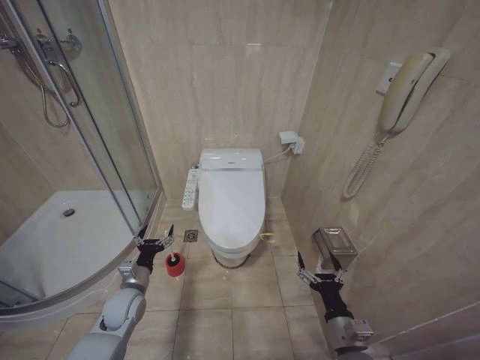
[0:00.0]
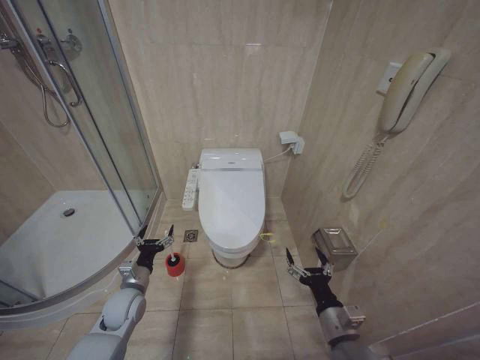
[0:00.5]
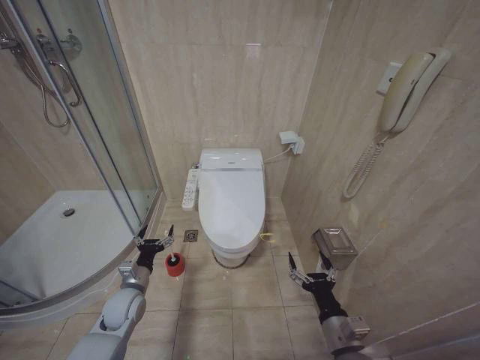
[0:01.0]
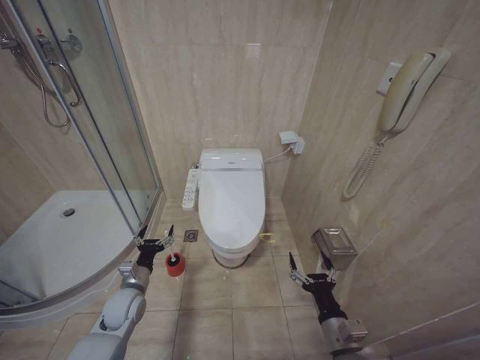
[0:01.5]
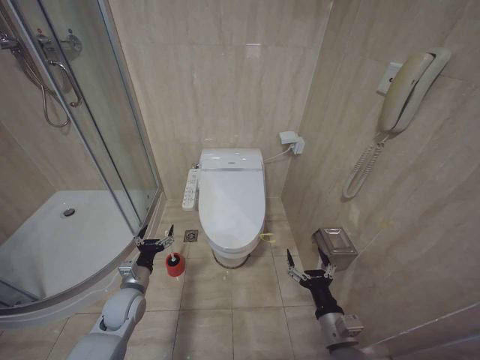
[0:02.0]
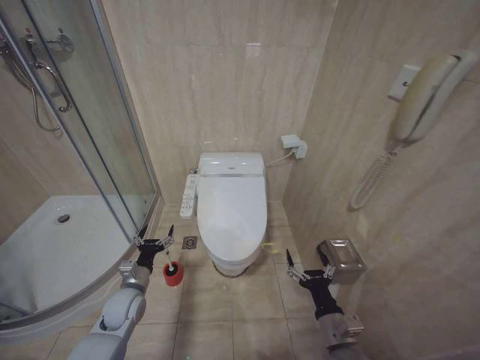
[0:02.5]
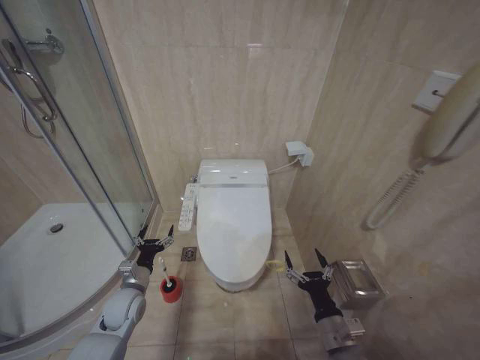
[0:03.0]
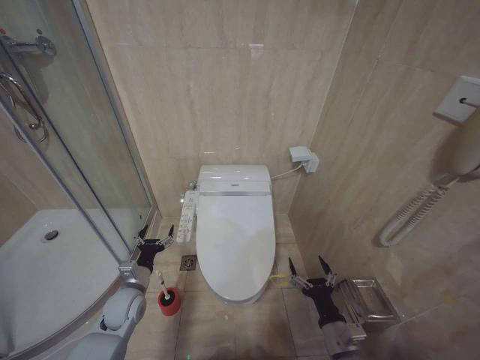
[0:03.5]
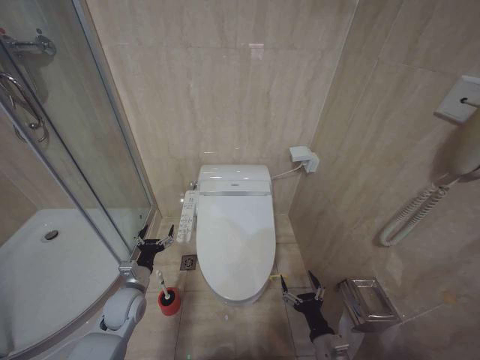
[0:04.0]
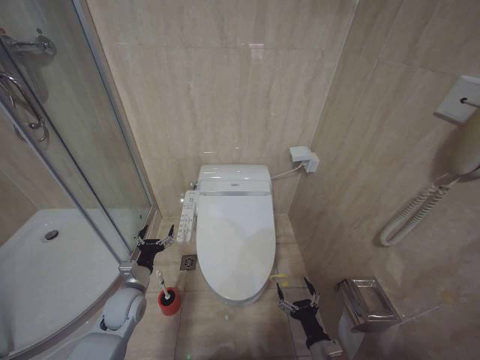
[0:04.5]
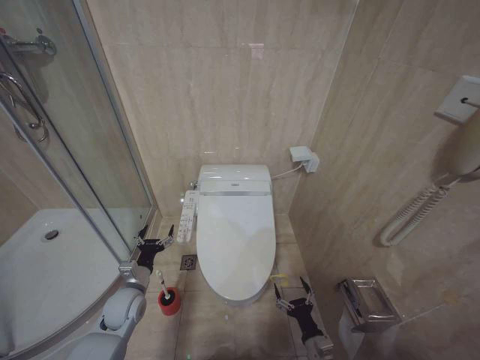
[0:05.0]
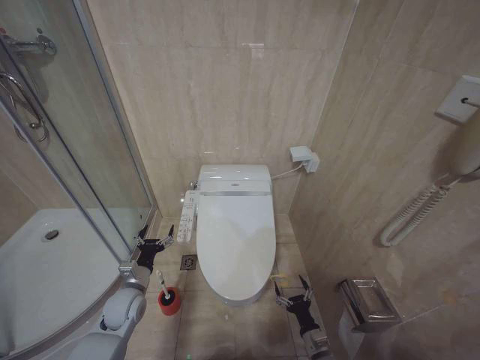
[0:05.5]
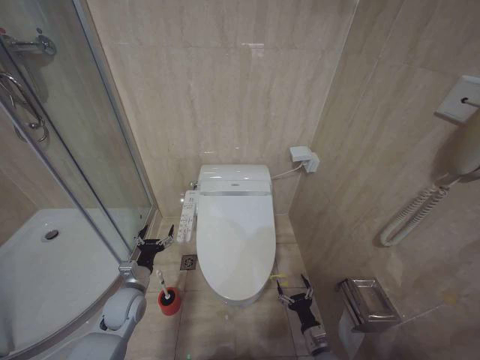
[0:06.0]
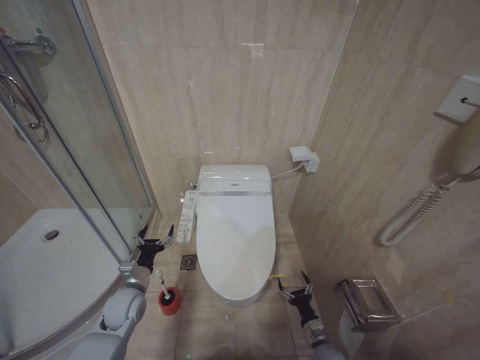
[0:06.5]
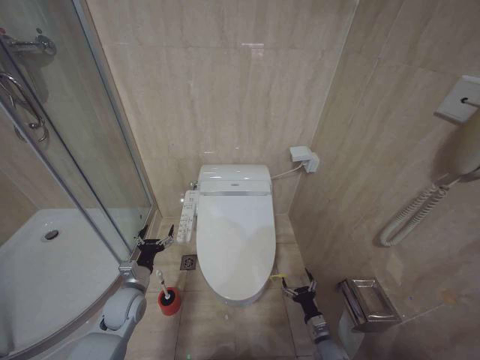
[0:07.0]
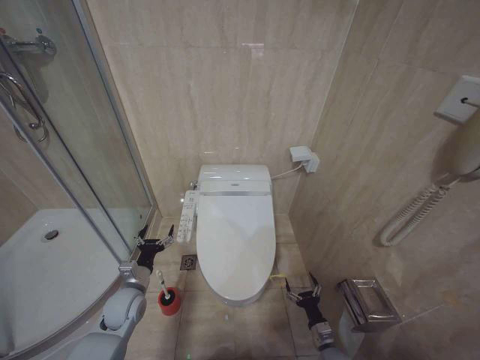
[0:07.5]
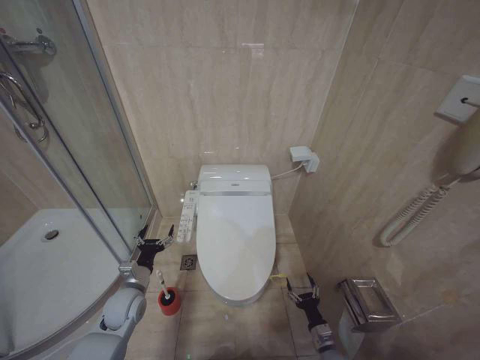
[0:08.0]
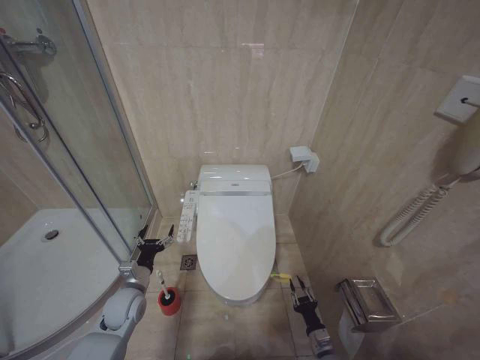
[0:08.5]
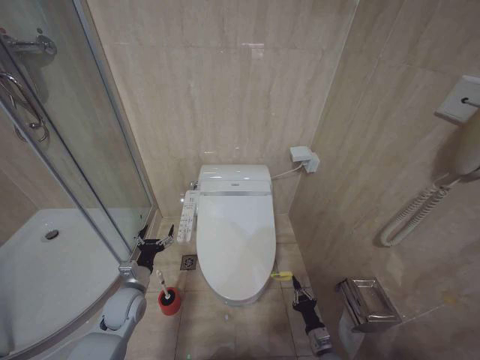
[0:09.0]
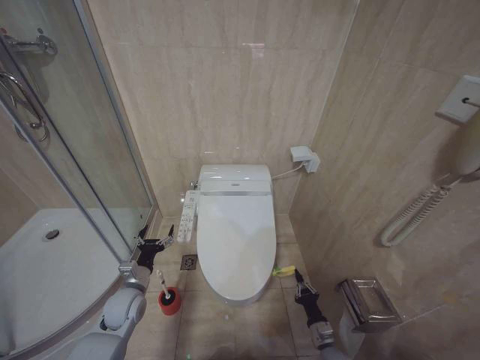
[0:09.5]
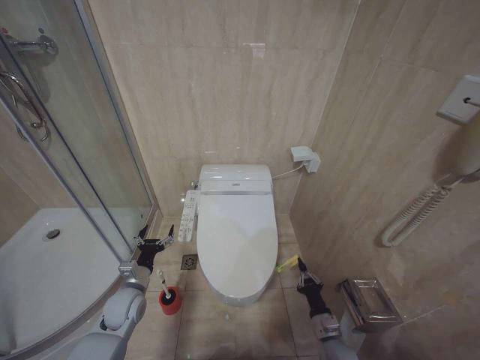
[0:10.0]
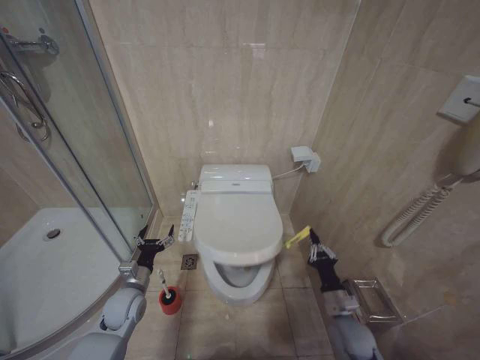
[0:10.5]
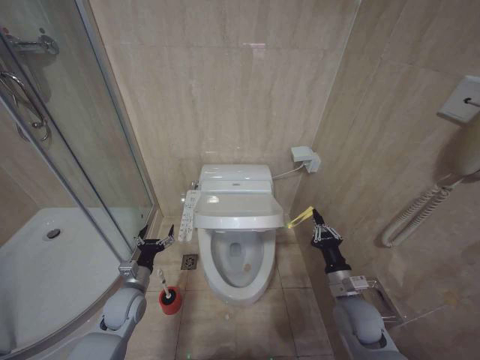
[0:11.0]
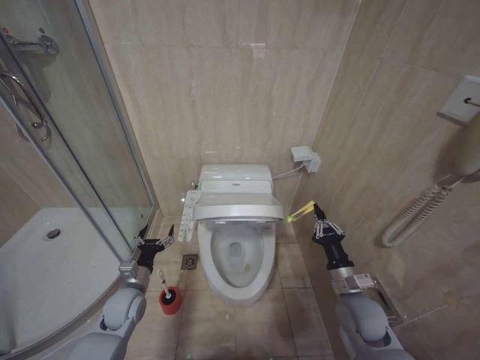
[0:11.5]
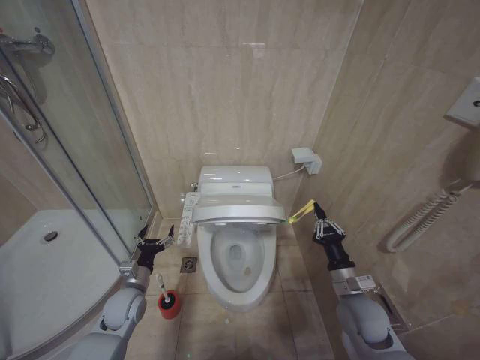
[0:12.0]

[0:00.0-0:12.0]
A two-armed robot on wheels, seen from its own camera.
Task of the whole recording: Open the toilet lid, clean the toilet bowl with a toilet brush, close the toilet lid, and flush.
0:02.0 to 0:04.0: The right gripper is displaced downward by roughly 10 cm.
0:04.0 to 0:06.0: The right gripper shifts approximately 15 cm downward and forward.
0:08.0 to 0:10.0: The right gripper is displaced upward by some 5 cm, and closes its fingers.
0:10.0 to 0:12.0: The right gripper moves upward, roughly 20 cm.

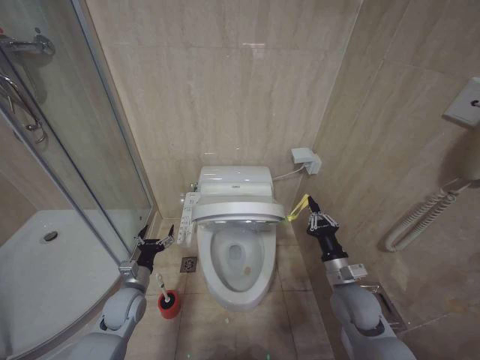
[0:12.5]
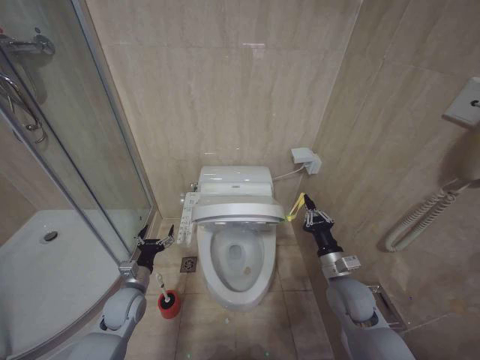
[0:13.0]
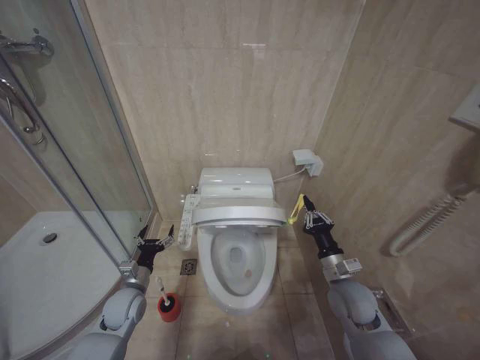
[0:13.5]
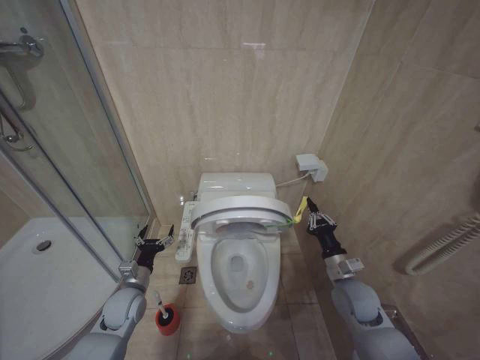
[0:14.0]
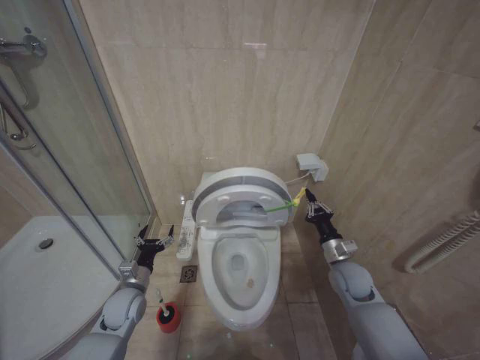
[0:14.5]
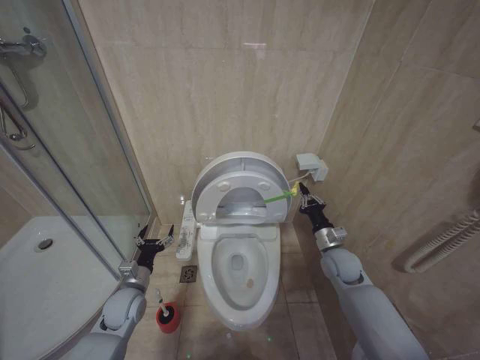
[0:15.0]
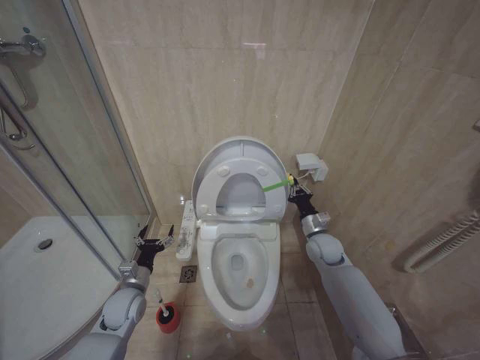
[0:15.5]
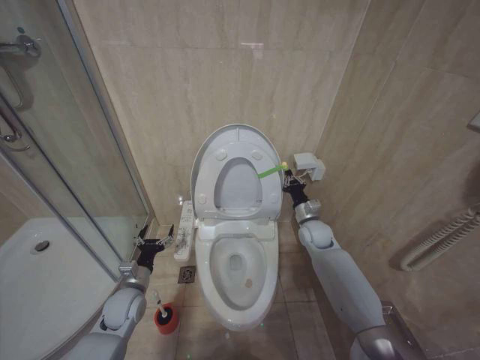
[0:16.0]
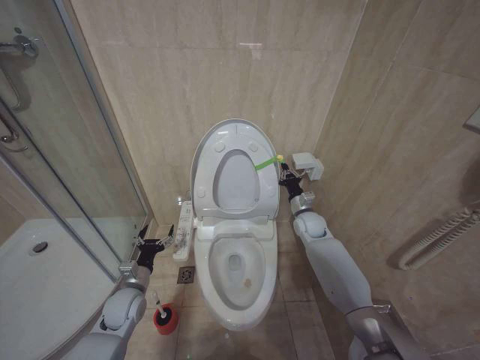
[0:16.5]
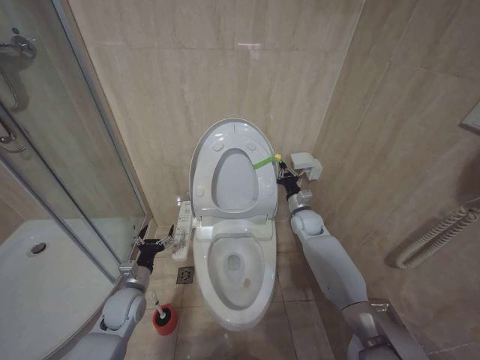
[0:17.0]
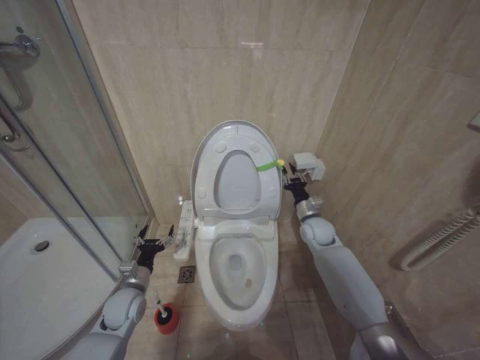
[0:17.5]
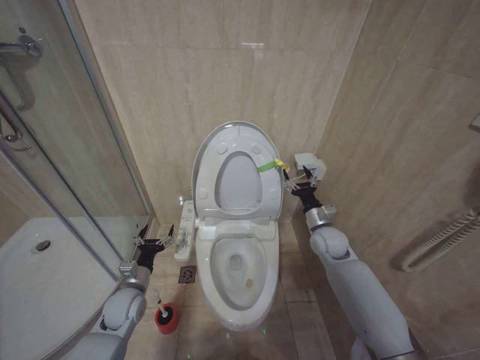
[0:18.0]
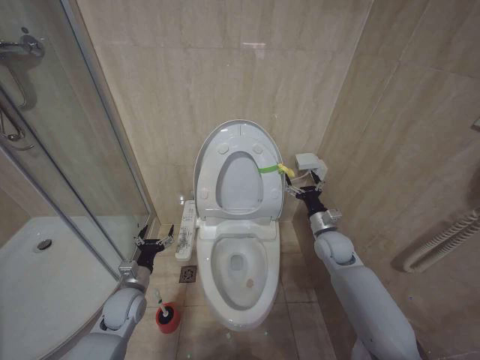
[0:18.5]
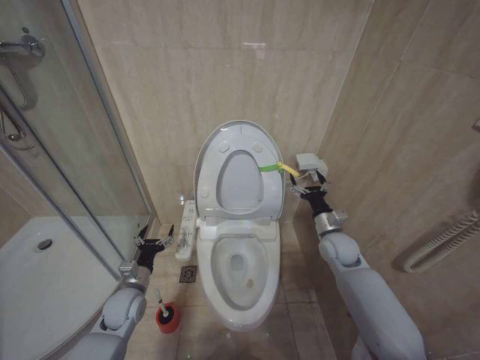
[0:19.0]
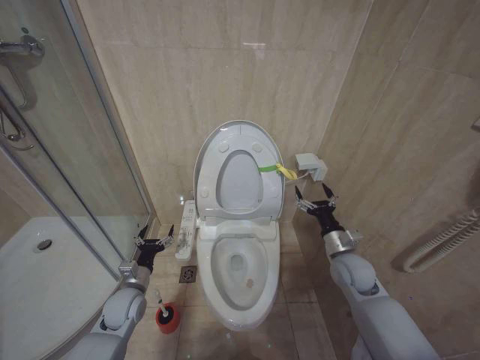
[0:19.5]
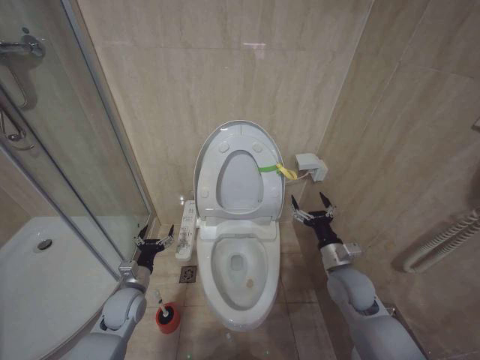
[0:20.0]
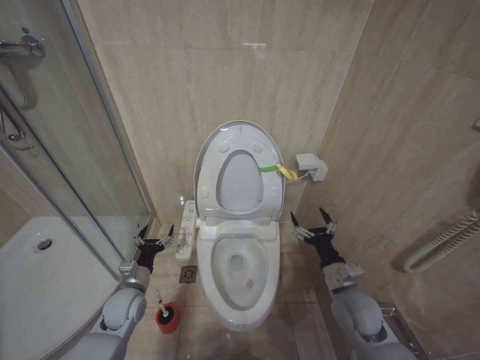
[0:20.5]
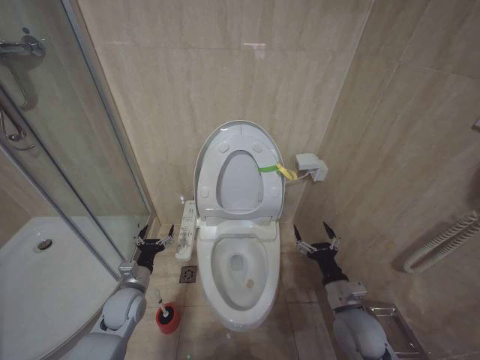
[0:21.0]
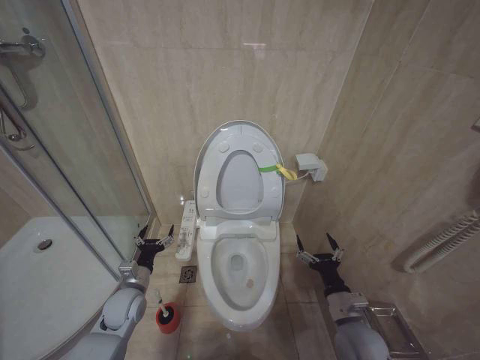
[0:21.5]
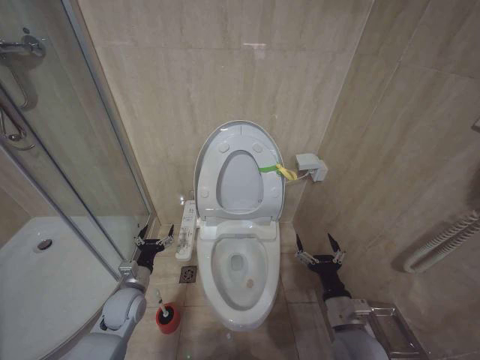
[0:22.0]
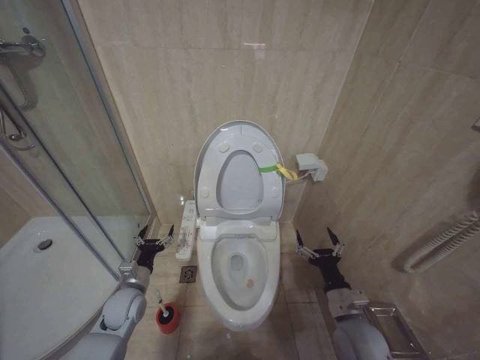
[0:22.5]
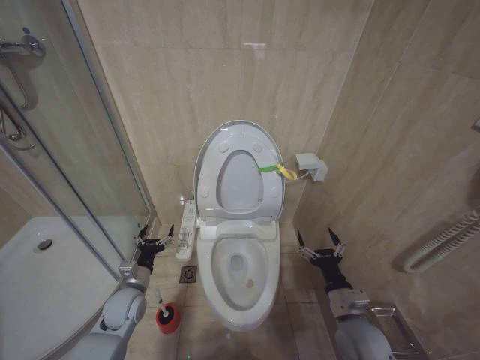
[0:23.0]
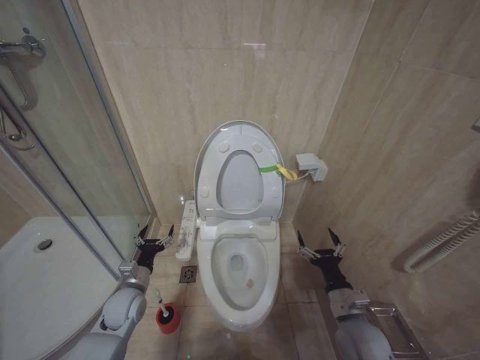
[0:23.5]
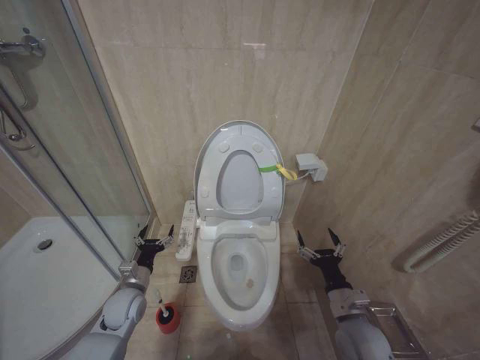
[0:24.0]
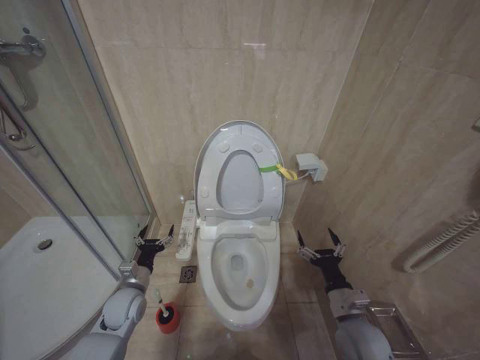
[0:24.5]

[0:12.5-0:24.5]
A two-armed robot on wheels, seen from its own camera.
Task of the whole recording: Open the toilet lid, clean the toilet bowl with a toilet brush, close the toilet lid, and flush.
0:12.5 to 0:14.5: The right gripper goes approximately 5 cm forward.
0:14.5 to 0:16.5: The right gripper goes approximately 15 cm forward.
0:16.5 to 0:18.5: The right gripper moves backward, roughly 10 cm, and opens.
0:18.5 to 0:20.5: The right gripper shifts some 15 cm backward.
0:20.5 to 0:22.5: The right gripper goes approximately 5 cm backward.
0:22.5 to 0:24.5: Both grippers stay put.

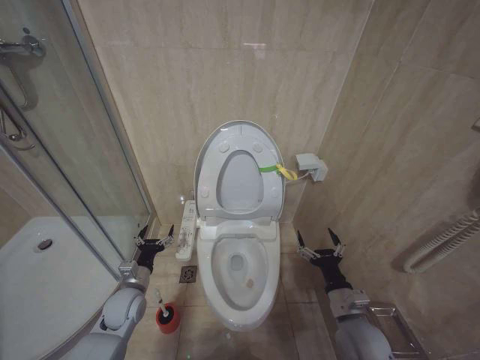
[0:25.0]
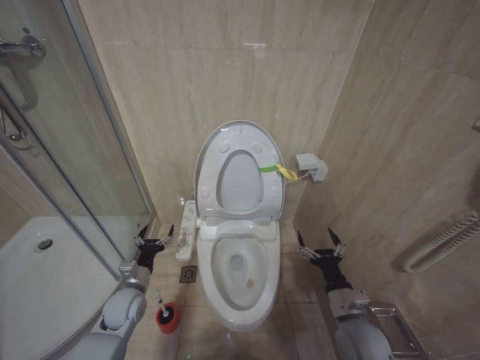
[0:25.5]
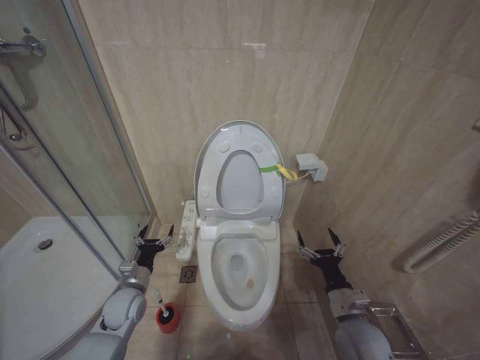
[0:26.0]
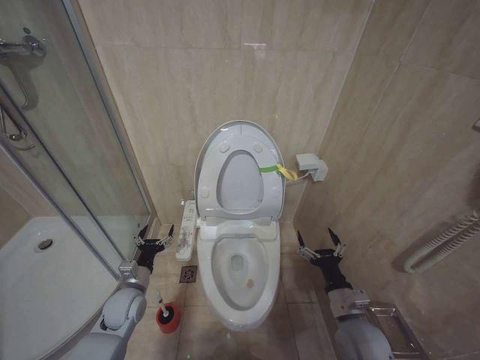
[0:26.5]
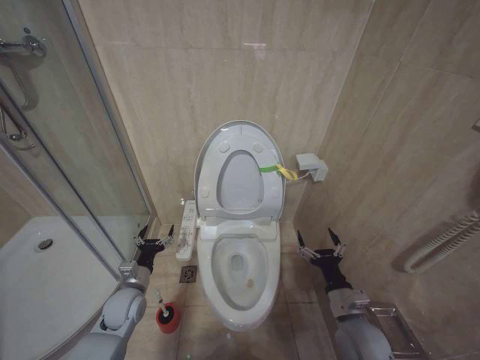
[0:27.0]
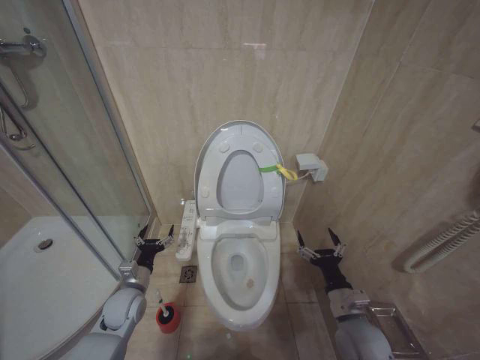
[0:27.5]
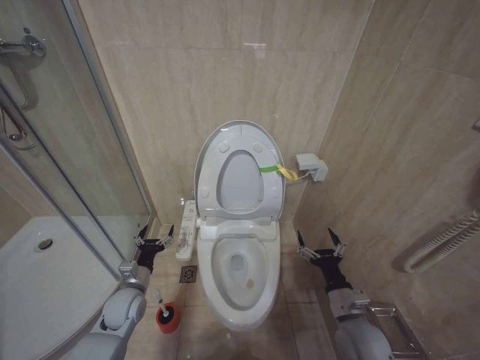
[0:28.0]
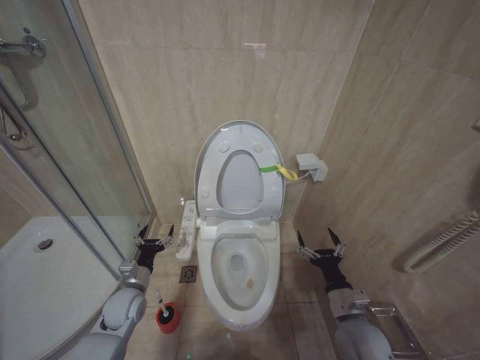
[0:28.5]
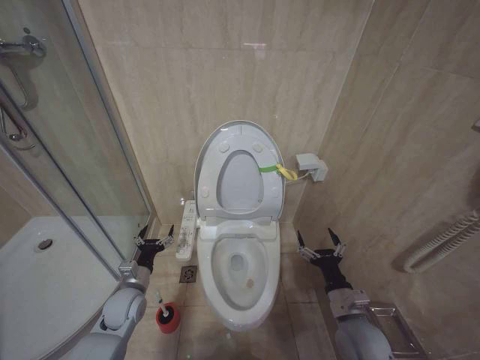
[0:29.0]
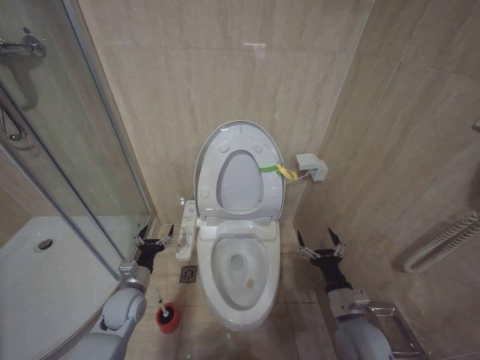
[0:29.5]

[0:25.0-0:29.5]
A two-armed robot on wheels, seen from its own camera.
Task of the whole recording: Open the toilet lid, clean the toilet bowl with a toilet brush, close the toilet lid, and flush.
0:25.0 to 0:29.5: Both grippers stay about where they are.
